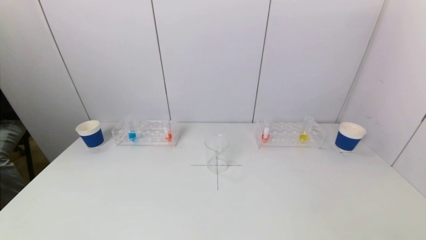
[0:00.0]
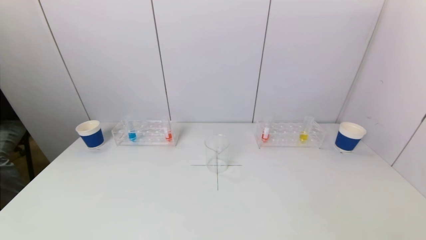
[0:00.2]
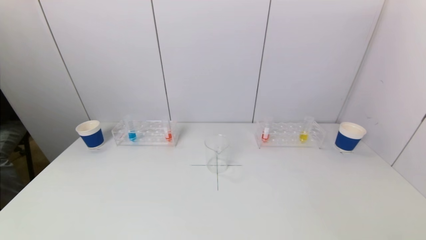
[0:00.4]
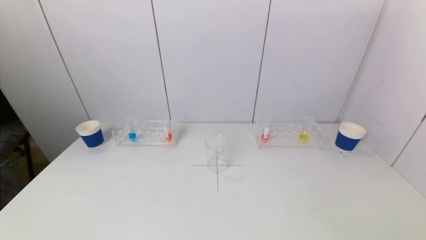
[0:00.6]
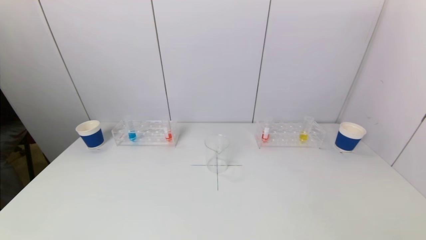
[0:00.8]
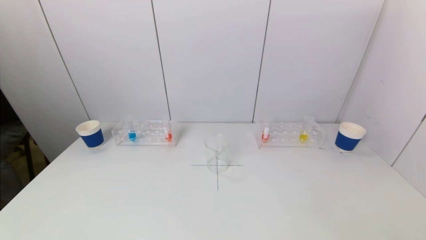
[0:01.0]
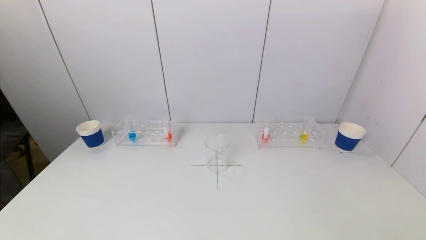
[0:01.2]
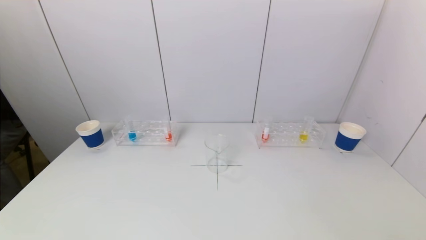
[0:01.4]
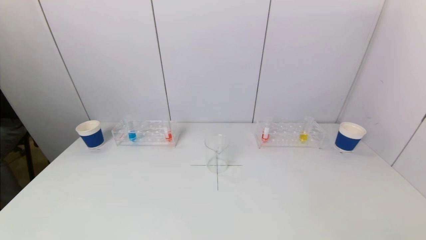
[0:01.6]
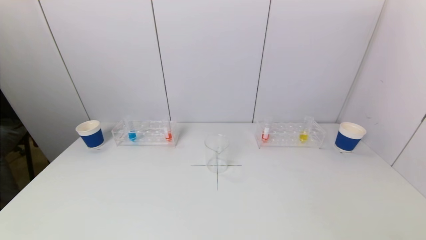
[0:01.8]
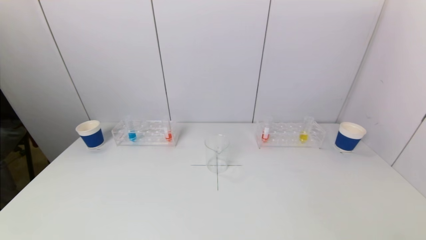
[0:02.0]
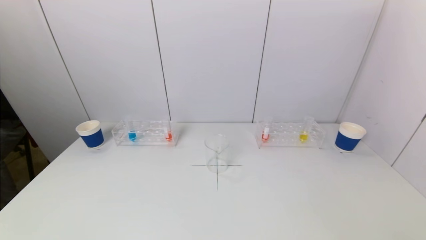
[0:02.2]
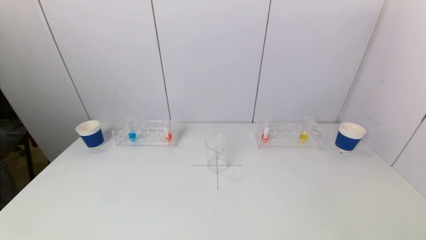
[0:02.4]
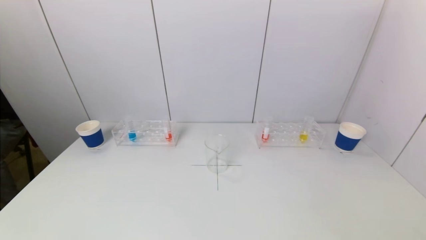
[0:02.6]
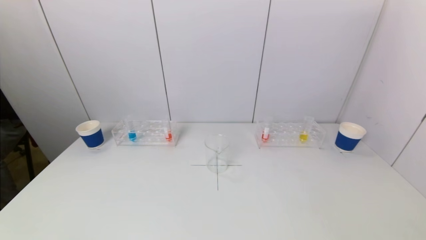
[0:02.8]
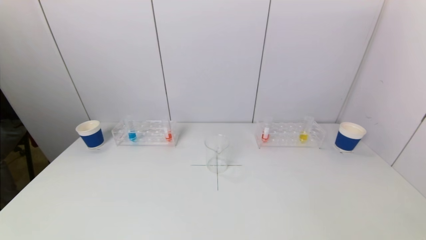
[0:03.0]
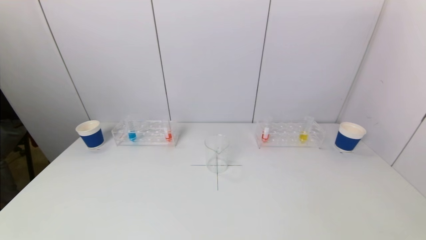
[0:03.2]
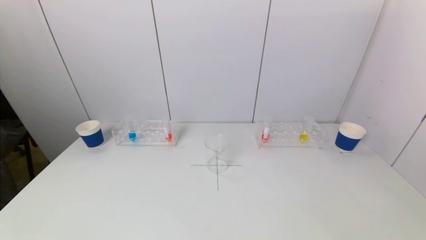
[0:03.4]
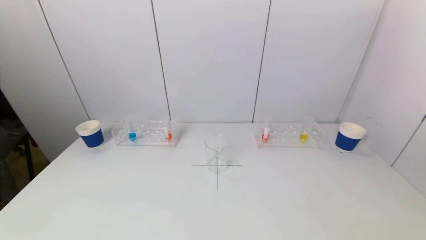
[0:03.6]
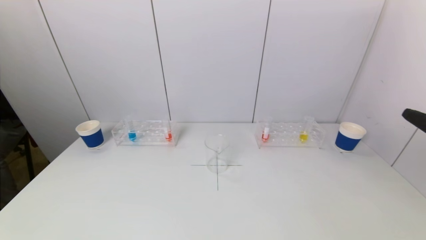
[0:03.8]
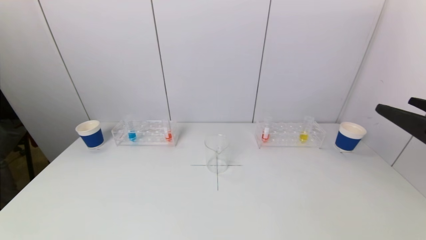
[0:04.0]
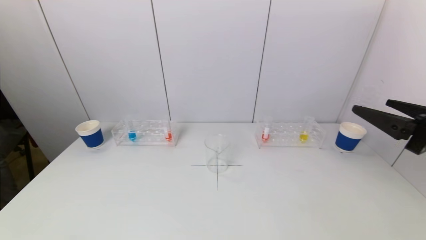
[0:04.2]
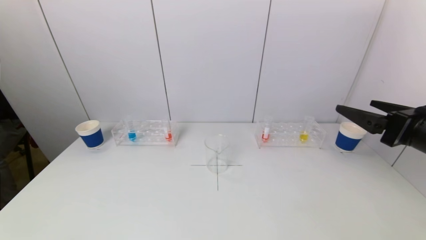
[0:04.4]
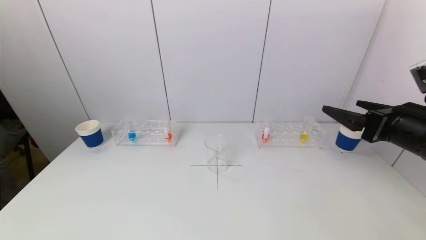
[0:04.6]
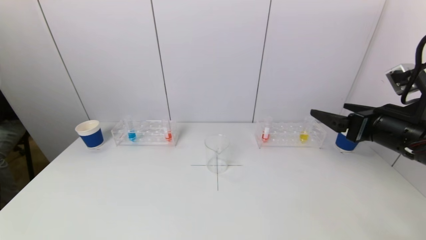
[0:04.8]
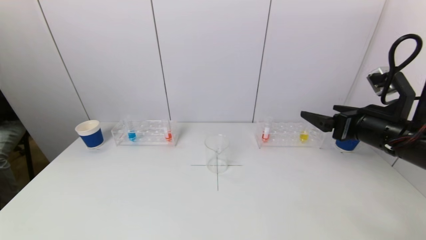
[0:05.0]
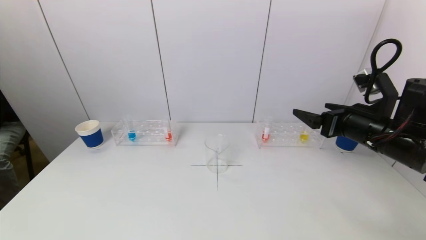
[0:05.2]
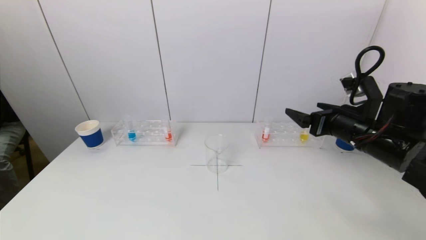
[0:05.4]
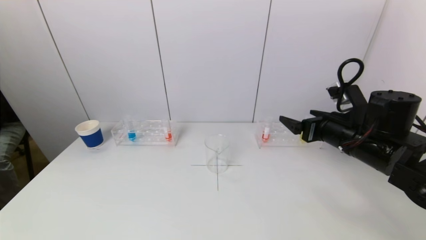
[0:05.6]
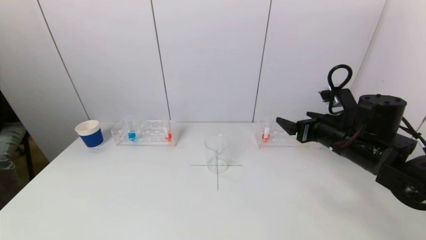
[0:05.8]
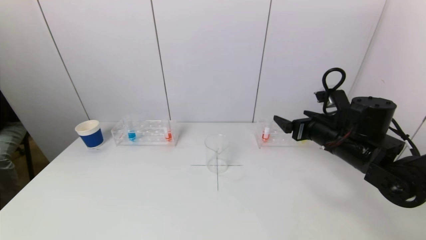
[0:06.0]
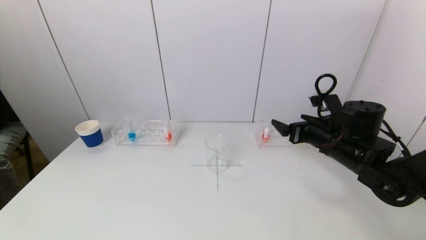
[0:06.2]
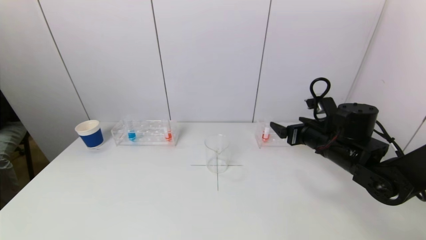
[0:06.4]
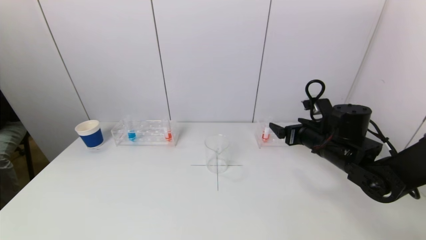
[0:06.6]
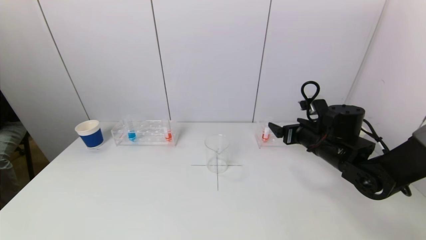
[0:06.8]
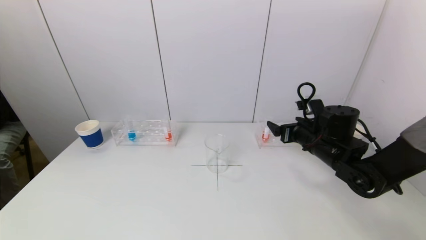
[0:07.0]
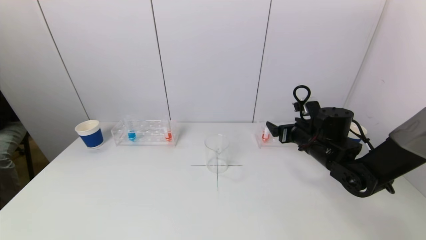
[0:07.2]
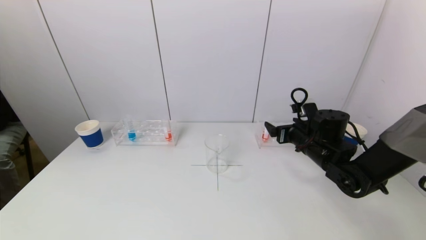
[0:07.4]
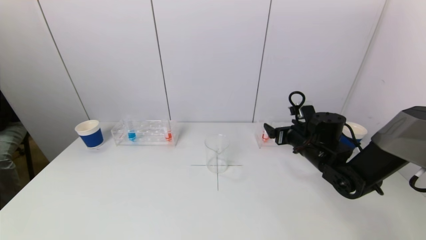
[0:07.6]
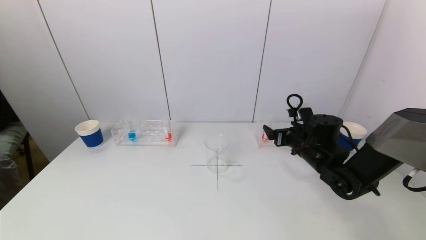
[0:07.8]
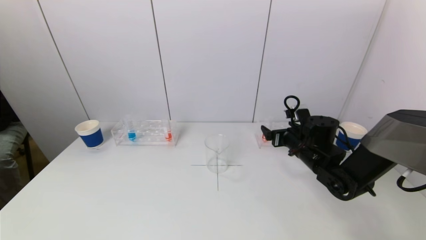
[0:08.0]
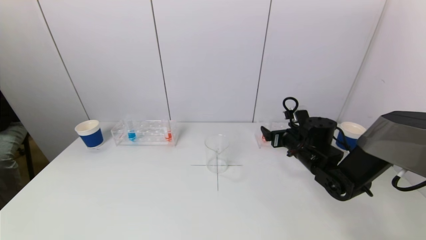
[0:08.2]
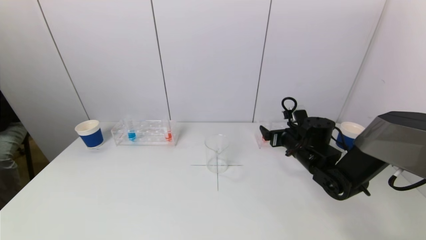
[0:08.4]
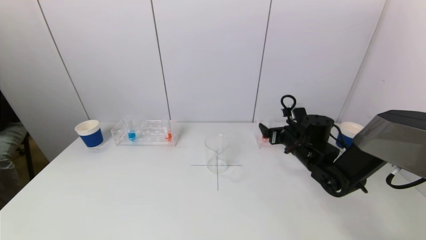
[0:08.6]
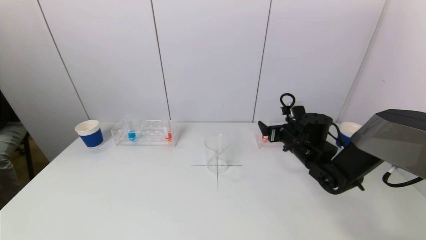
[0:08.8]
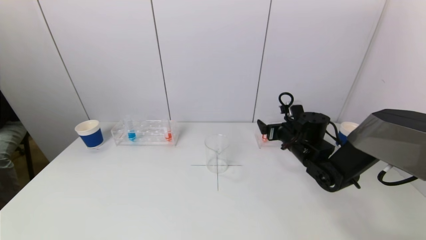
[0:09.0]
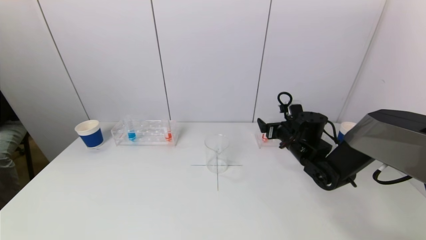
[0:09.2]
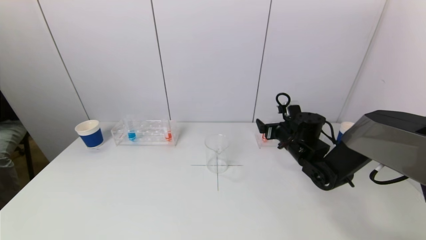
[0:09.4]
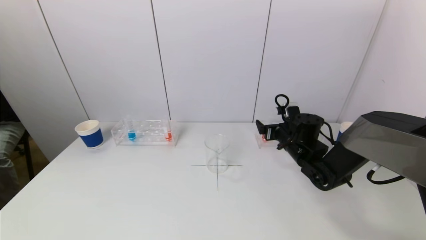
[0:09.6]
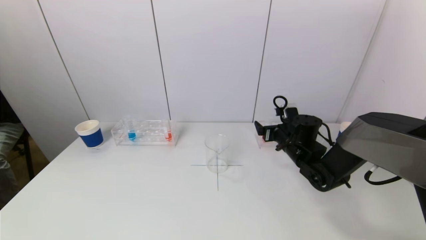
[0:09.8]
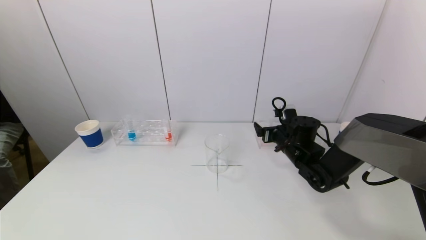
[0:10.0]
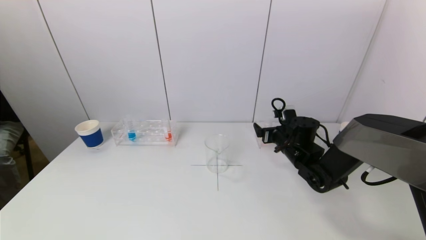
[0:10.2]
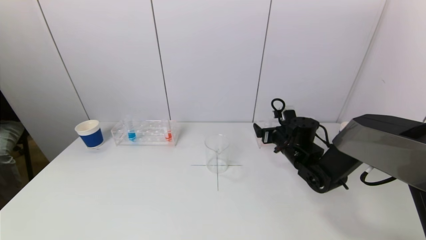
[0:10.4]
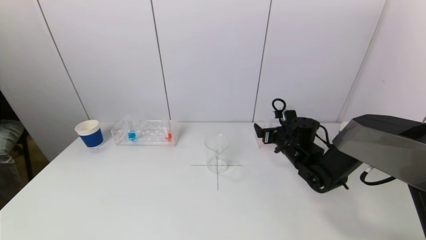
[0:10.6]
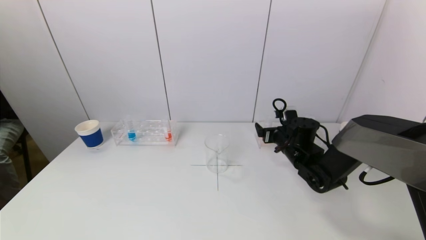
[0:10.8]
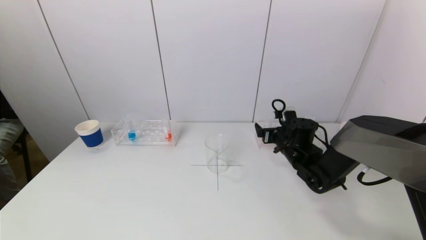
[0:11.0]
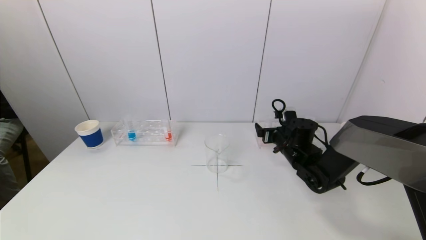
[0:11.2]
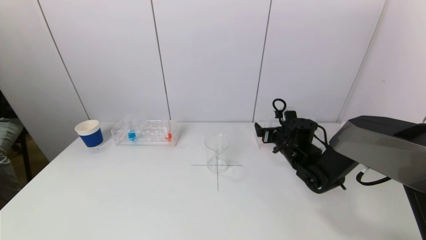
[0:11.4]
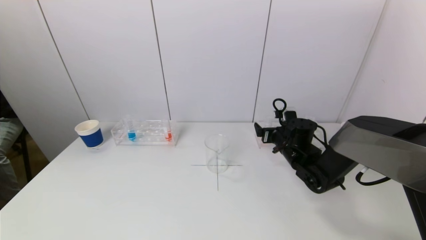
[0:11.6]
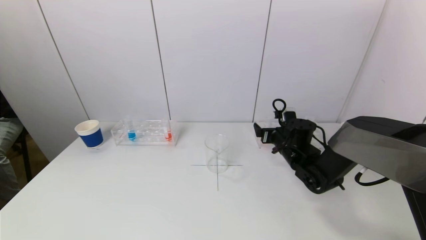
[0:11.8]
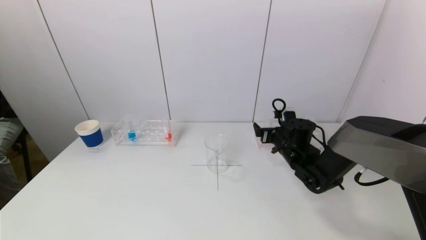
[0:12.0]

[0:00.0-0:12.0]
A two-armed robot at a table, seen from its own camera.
Task of the whole recording: pick up a test tube with pigment on left test tube rack and a test tube with pigment on right test tube rack by grippers and pour them into the beaker.
0:00.0 to 0:01.6: The two grippers keep their place.
0:03.0 to 0:04.4: The right gripper is displaced forward by about 20 cm.
0:04.4 to 0:06.0: The right gripper is displaced forward, downward and to the left by roughly 15 cm.
0:06.0 to 0:07.6: The right gripper goes about 10 cm downward and forward.
0:07.6 to 0:10.4: The grippers stay close to where they were, moving slightly.
0:10.4 to 0:12.0: The two grippers keep their place.

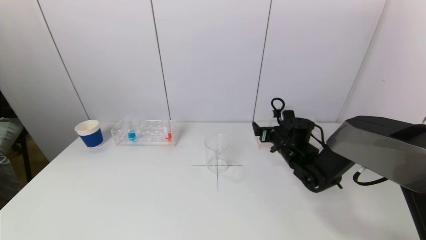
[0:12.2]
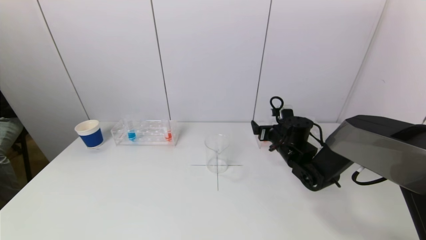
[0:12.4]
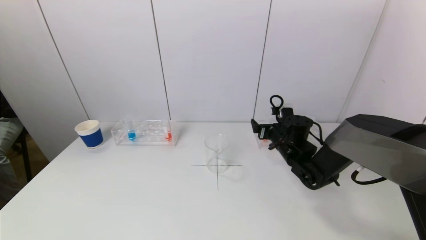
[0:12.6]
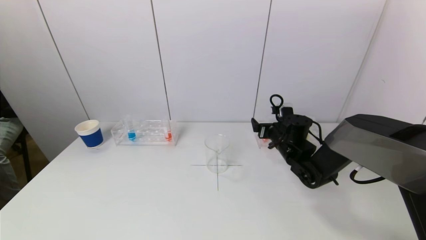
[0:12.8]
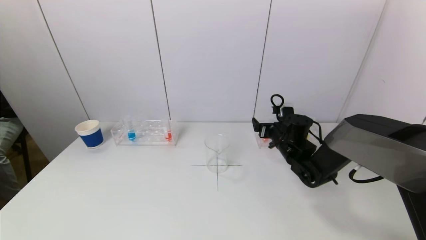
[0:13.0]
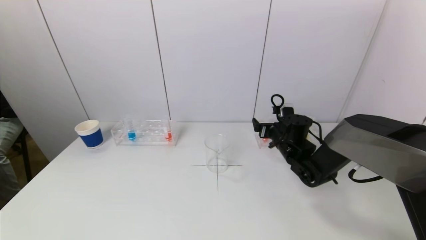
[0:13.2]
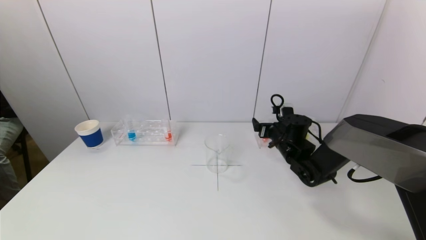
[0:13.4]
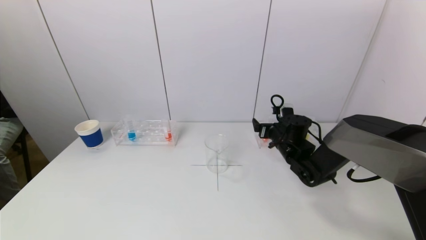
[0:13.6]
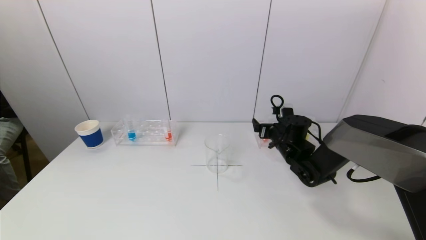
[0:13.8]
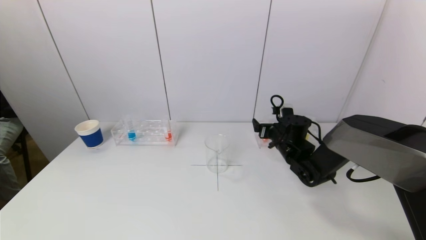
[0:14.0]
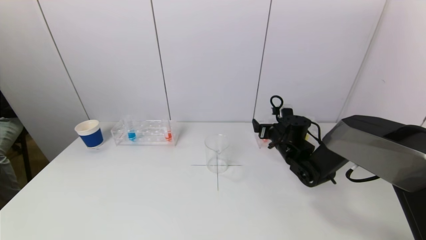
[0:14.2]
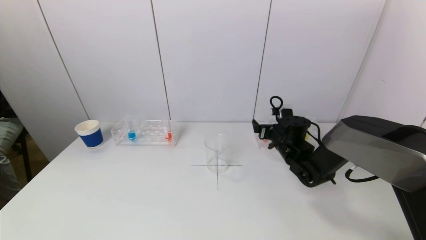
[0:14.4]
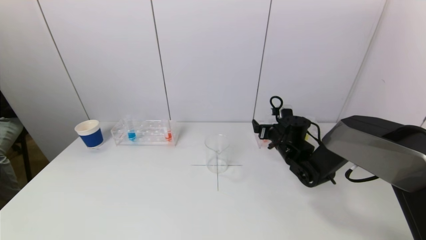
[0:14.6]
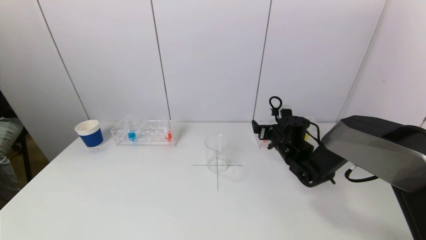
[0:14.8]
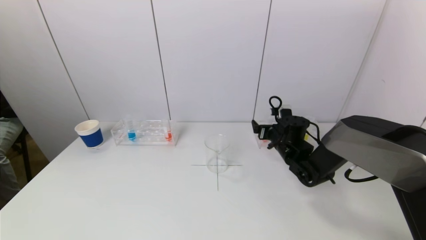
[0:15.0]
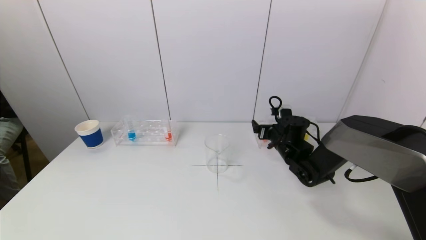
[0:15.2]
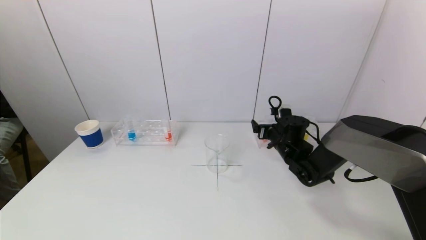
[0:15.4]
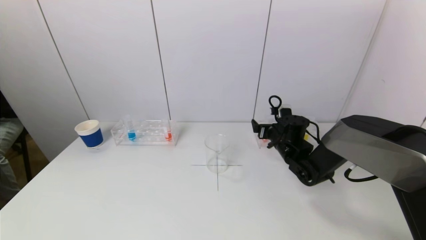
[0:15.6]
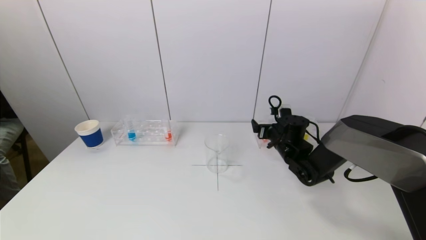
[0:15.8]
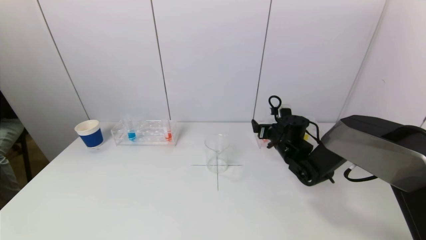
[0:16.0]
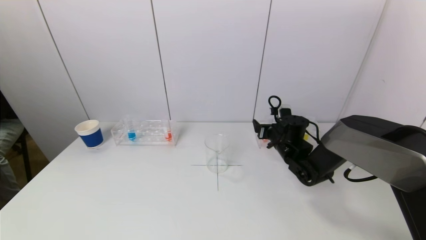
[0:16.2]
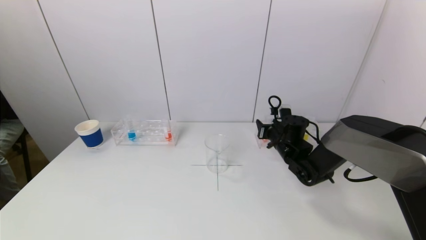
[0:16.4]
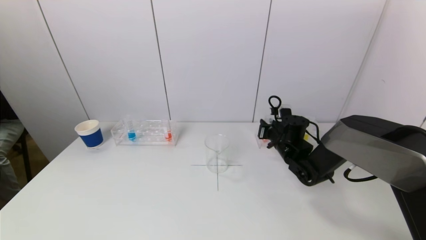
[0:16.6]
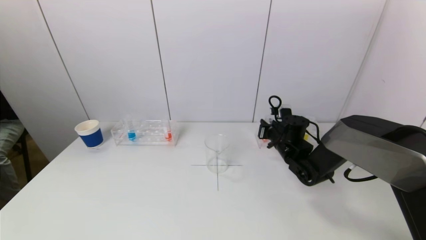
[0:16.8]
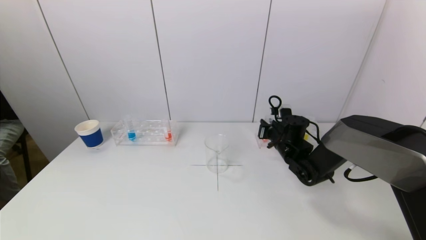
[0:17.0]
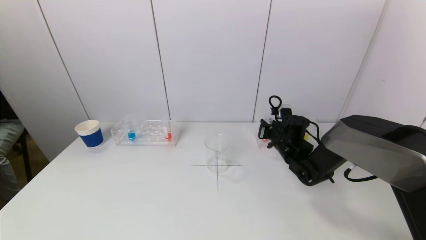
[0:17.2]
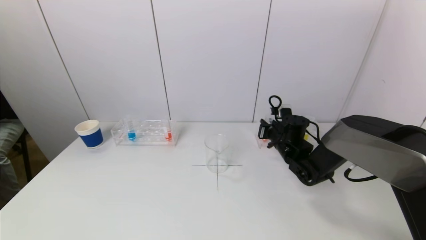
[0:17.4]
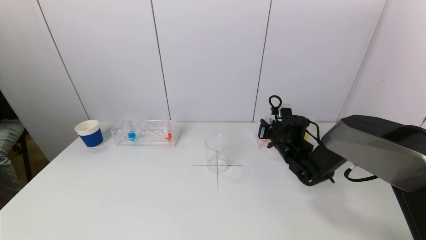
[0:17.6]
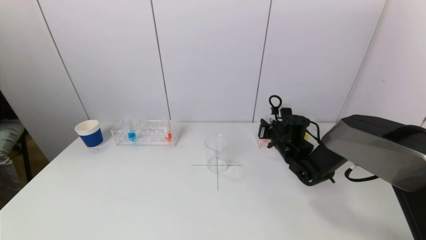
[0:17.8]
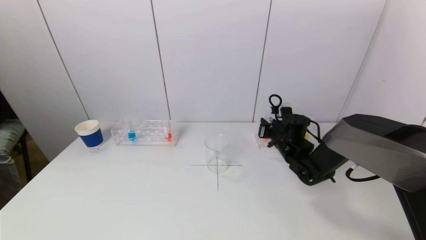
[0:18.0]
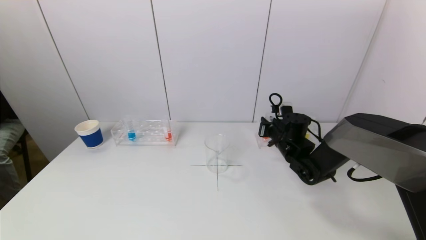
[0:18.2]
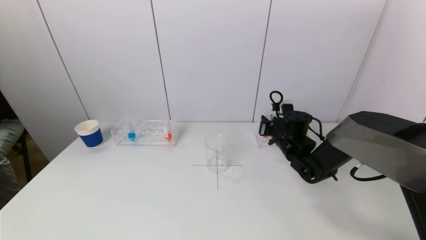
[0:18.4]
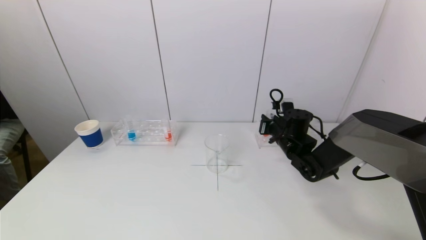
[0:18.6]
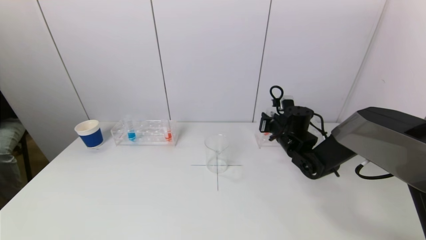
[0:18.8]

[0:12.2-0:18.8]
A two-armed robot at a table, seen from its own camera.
Task of the whole recording: pick up a test tube with pigment on left test tube rack and a test tube with pigment on right test tube rack by grippers and pour them into the beaker.
Step, 0:12.2 to 0:17.0: Grasp the red reagent with the right gripper.
0:12.2 to 0:13.8: Both grippers stay about where they are.
0:13.8 to 0:15.4: Neither gripper changes place.
0:17.2 to 0:18.8: There are only small adjustments of the grippers.
